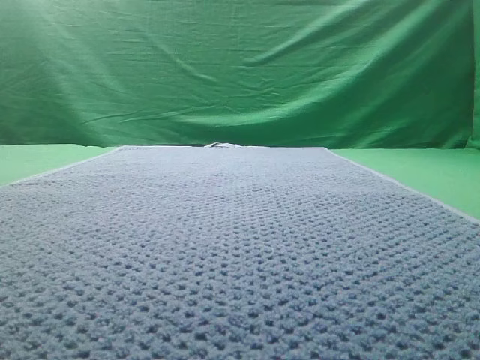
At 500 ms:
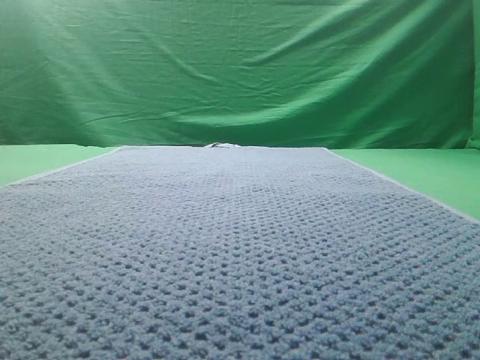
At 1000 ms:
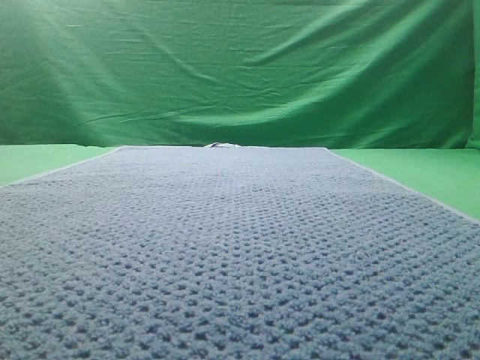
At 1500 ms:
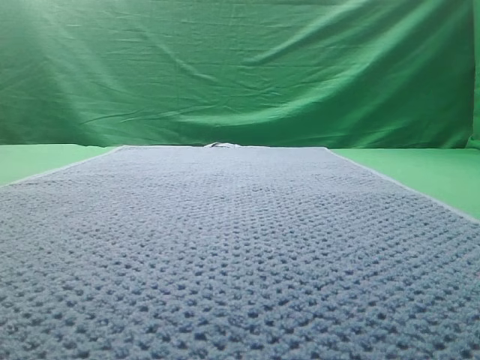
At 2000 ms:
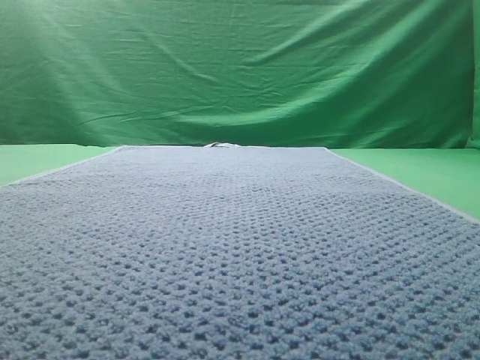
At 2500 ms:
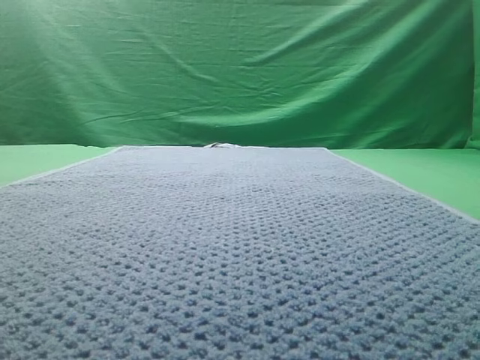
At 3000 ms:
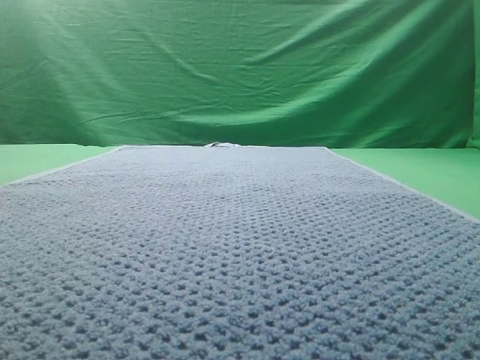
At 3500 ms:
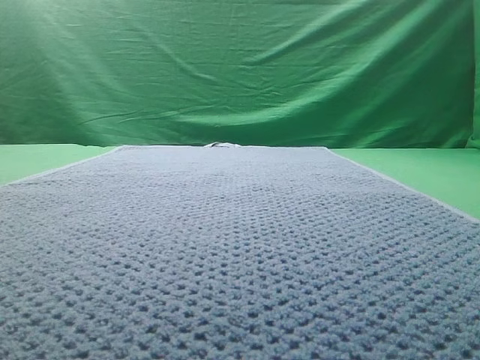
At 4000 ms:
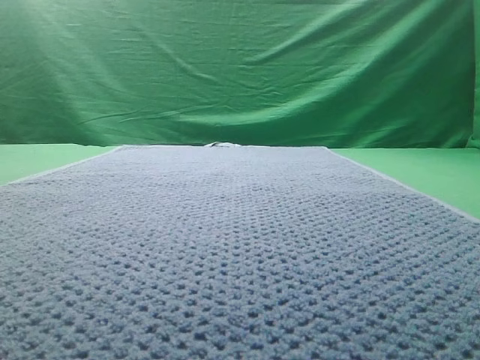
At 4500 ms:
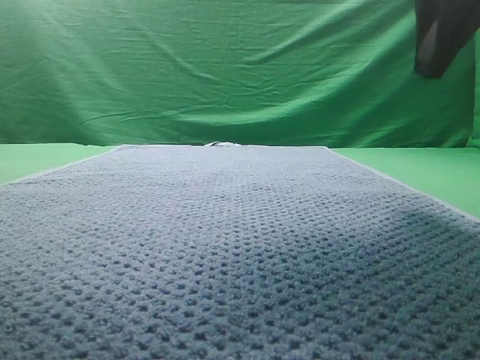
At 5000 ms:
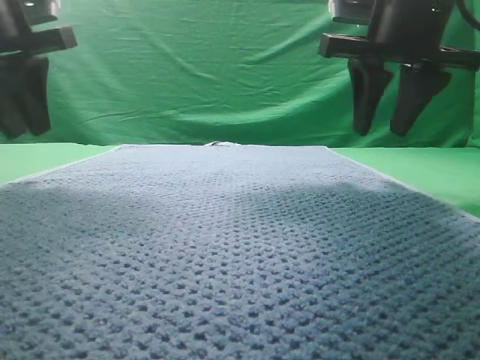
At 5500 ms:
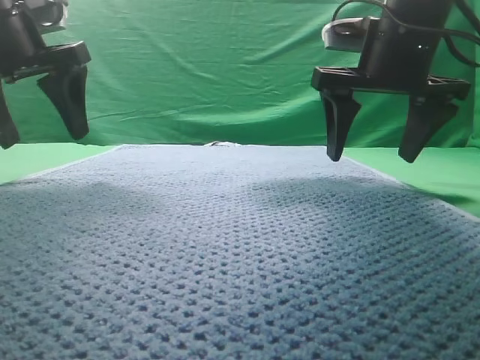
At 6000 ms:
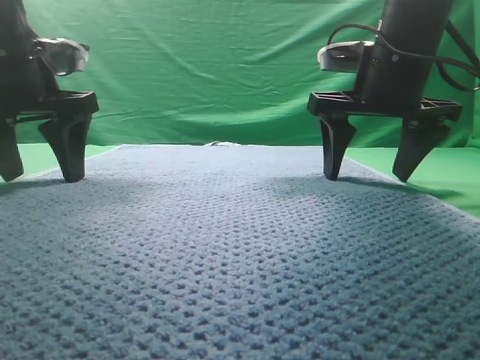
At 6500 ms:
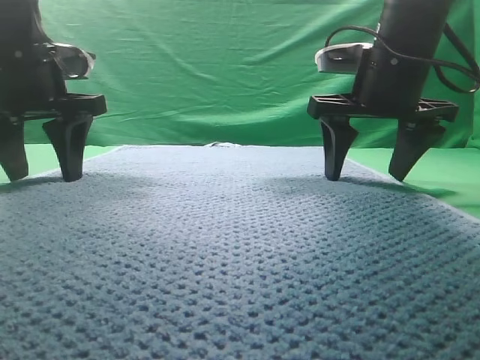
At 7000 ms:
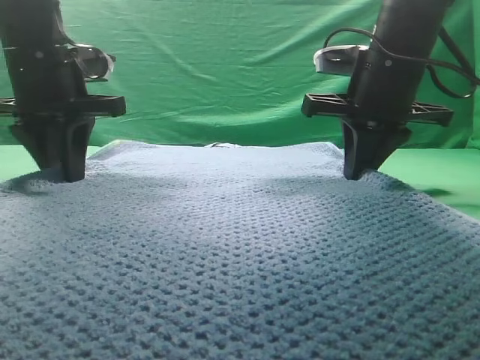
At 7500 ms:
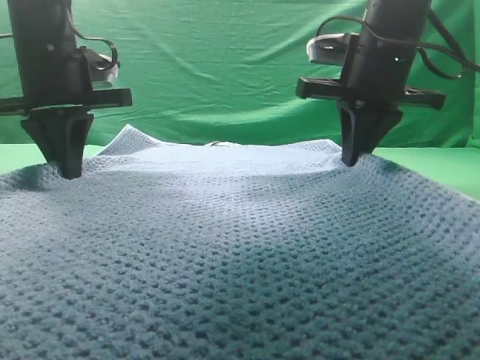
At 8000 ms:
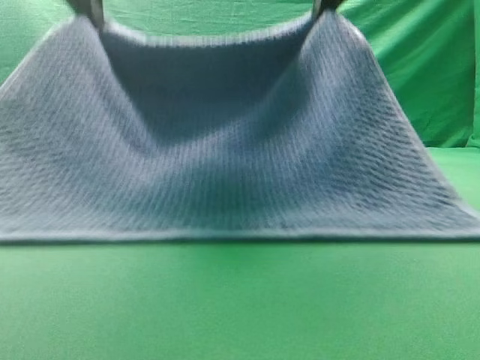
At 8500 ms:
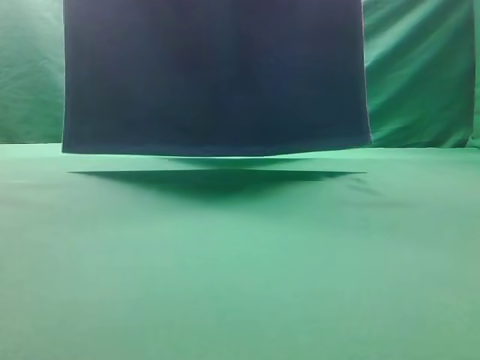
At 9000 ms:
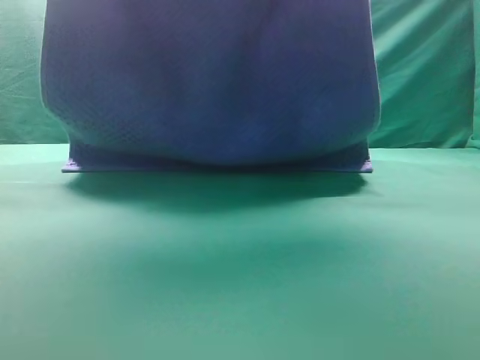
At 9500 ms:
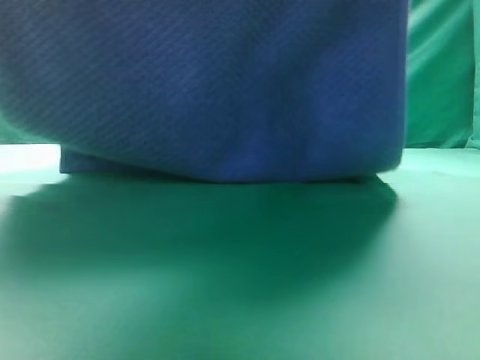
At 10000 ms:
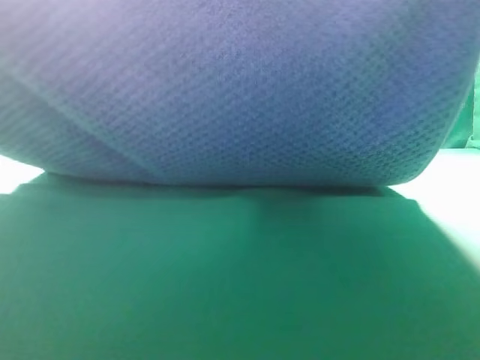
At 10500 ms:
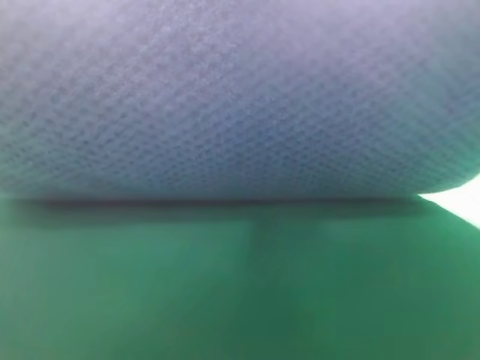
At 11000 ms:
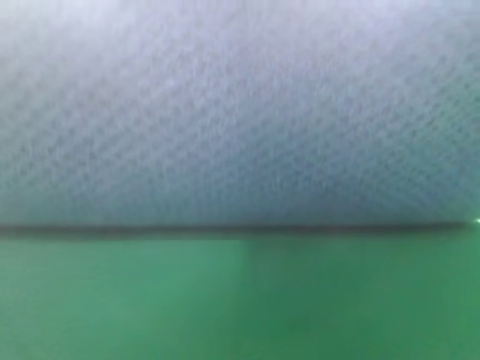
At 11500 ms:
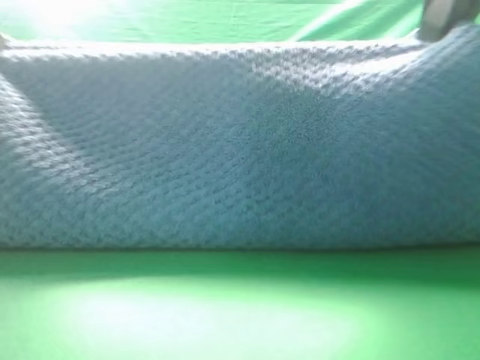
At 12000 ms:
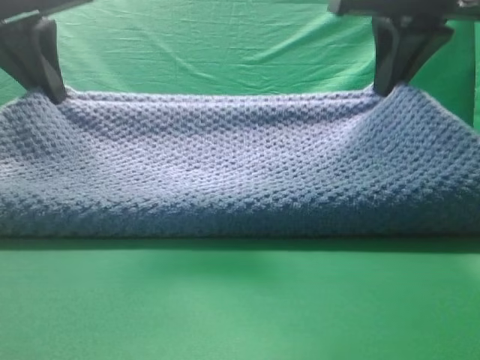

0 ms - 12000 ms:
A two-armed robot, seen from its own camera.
Task of the whole recording: fold the towel on the table twice.
Step, 0 ms - 8000 ms: pick up the towel with two arm.
